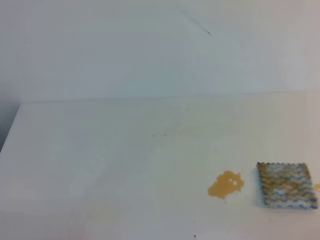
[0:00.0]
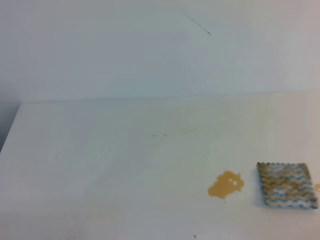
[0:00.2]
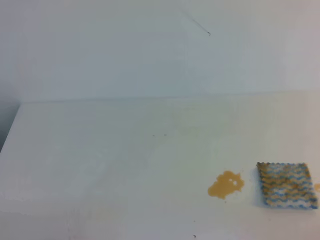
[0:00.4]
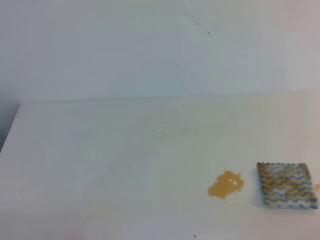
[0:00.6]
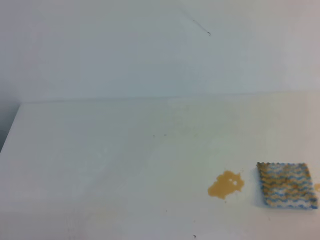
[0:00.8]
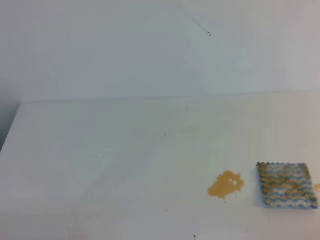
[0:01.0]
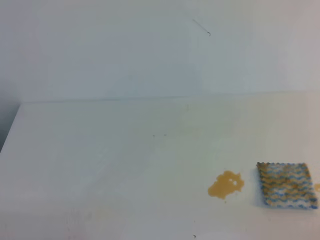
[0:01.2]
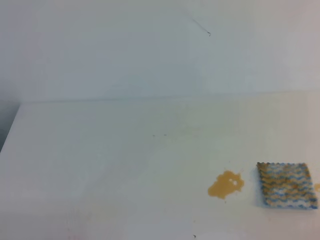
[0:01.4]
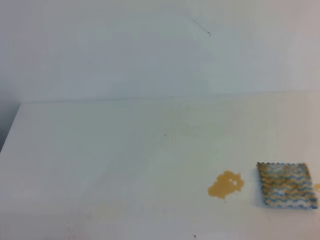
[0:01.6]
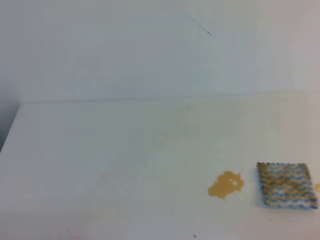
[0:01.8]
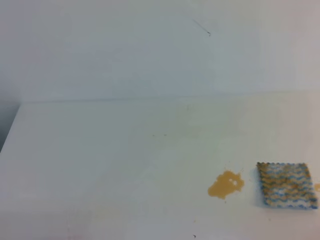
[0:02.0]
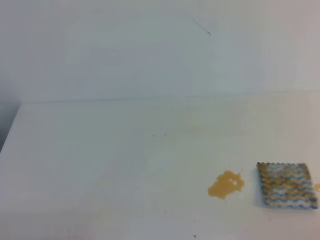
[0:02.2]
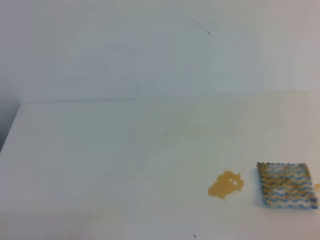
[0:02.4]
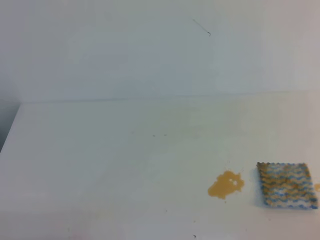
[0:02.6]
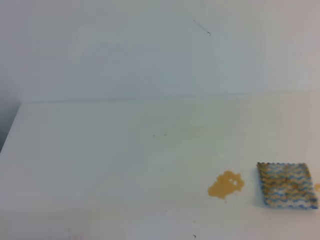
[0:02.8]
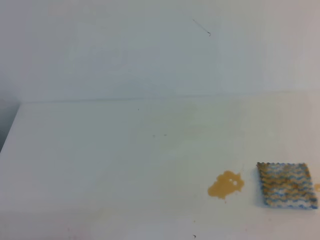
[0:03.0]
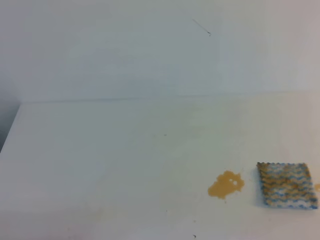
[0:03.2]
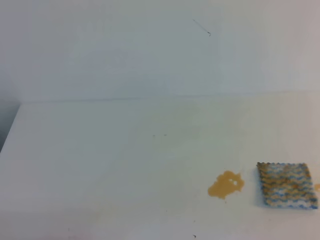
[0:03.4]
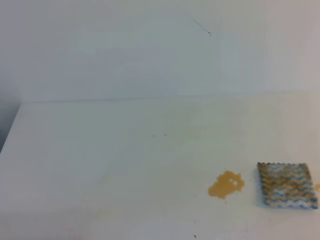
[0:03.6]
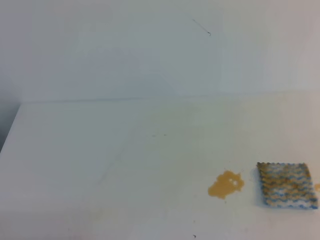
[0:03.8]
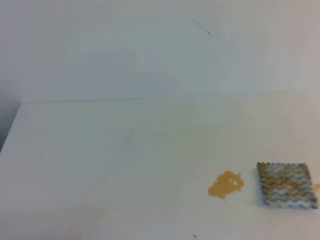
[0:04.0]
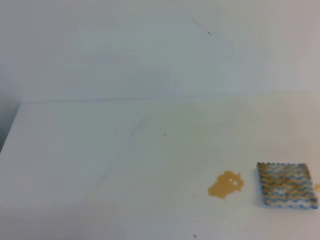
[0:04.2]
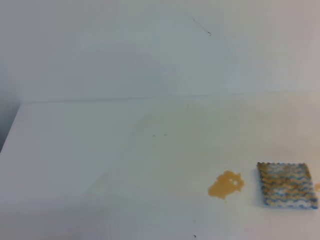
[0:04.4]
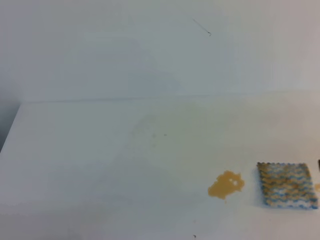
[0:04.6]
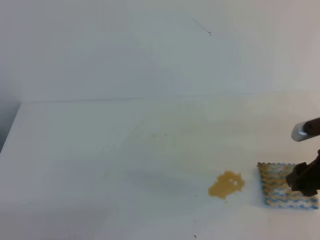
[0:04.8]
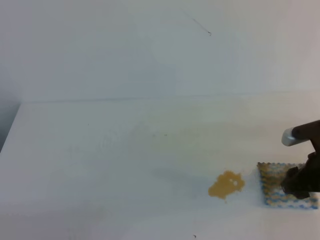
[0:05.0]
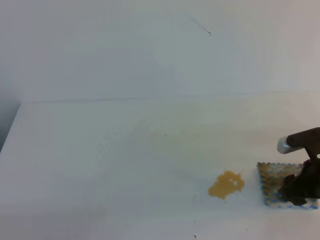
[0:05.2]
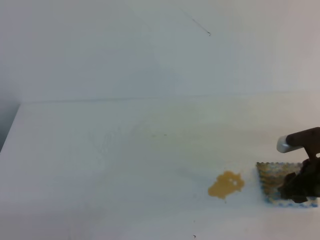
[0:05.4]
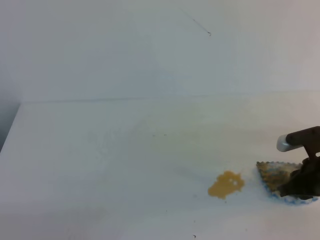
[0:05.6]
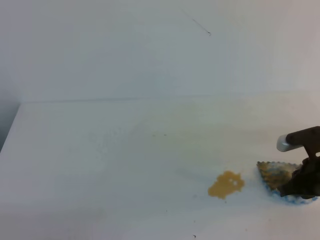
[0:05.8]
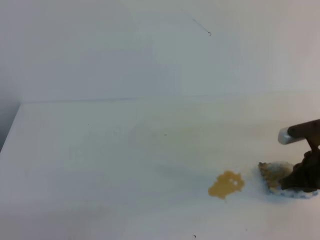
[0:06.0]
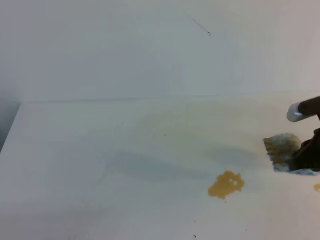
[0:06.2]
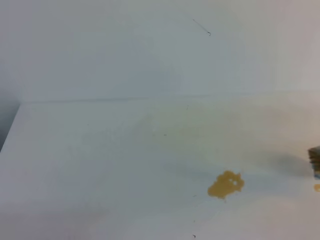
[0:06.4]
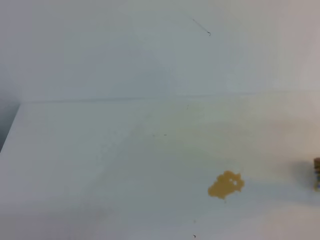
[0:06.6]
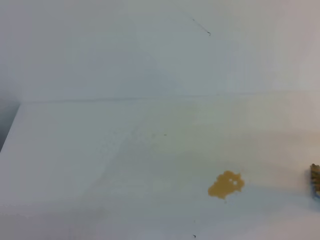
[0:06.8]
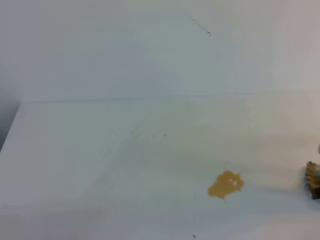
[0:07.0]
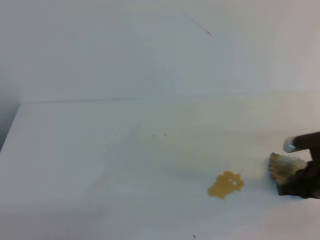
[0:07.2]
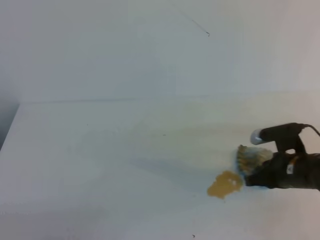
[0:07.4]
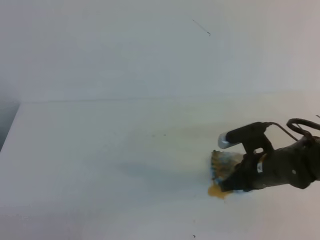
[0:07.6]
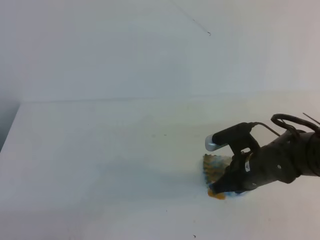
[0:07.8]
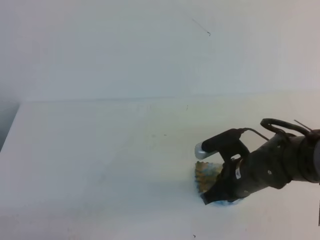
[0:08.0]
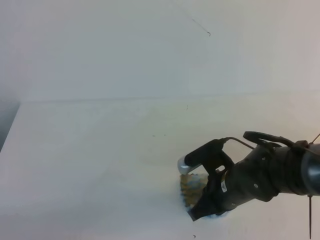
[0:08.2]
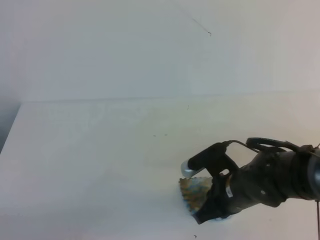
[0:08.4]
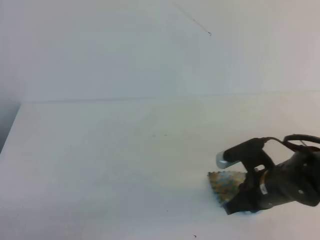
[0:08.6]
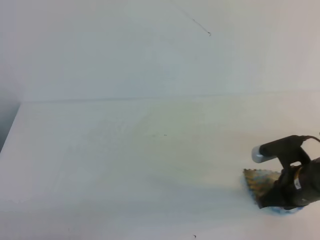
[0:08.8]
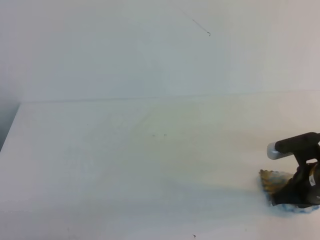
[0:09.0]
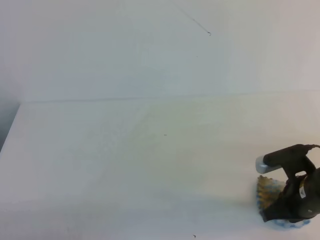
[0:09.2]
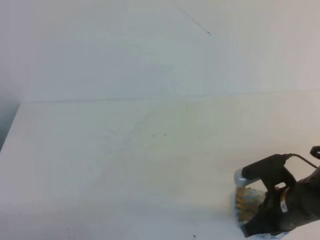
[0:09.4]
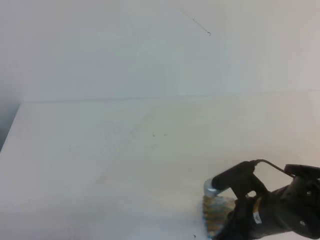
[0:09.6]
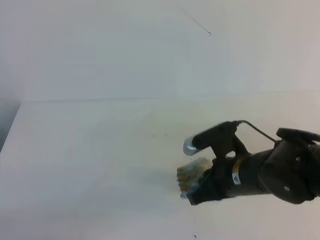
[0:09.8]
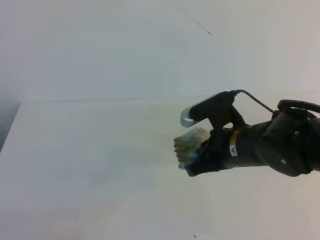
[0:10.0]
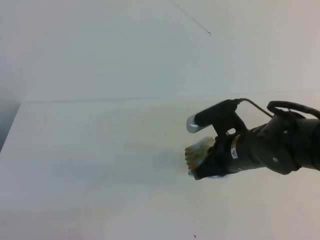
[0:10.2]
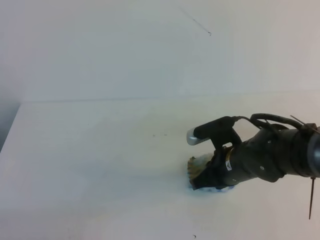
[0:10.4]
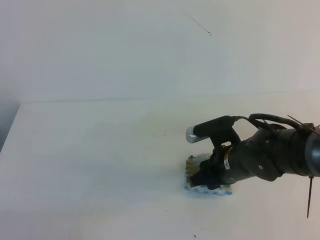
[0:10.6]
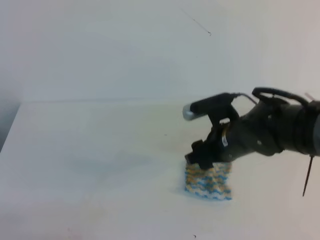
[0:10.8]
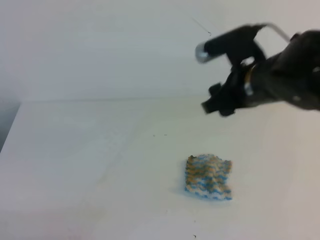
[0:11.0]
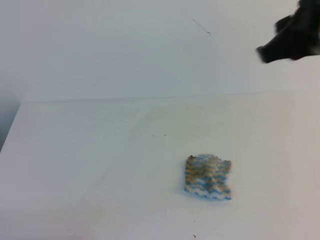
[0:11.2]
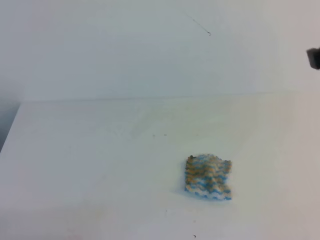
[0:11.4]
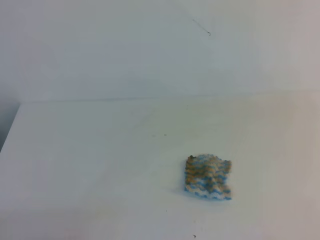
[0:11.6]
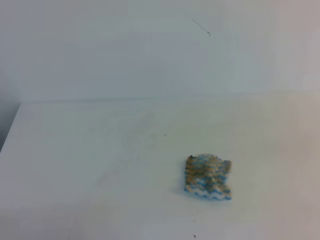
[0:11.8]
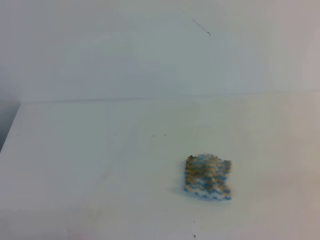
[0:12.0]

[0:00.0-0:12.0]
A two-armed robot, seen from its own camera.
0:00.0 to 0:01.6: The two grippers keep their place.
0:04.4 to 0:06.0: The right gripper moves downward and forward, about 15 cm, and closes up.
0:06.0 to 0:07.6: The right gripper is displaced to the left and downward by some 10 cm.
0:07.6 to 0:09.0: The right gripper shifts by roughly 5 cm.
0:09.0 to 0:10.4: The right gripper goes some 10 cm to the left.
0:10.4 to 0:12.0: The right gripper goes approximately 30 cm backward, to the right and upward, and opens and closes again.

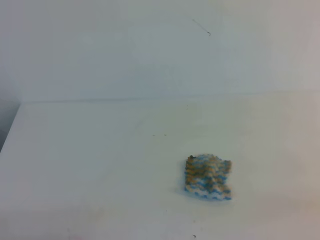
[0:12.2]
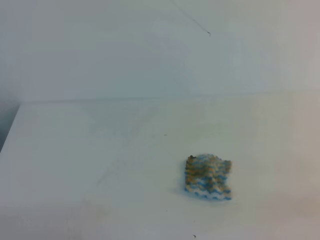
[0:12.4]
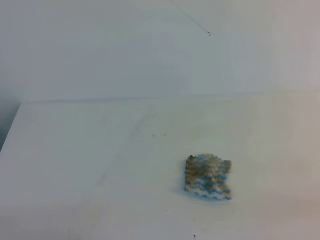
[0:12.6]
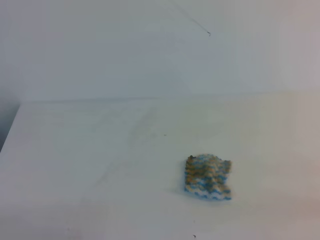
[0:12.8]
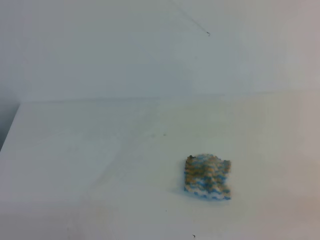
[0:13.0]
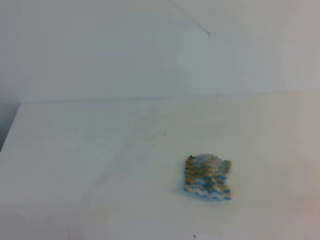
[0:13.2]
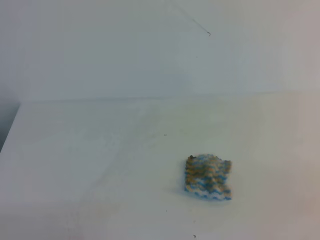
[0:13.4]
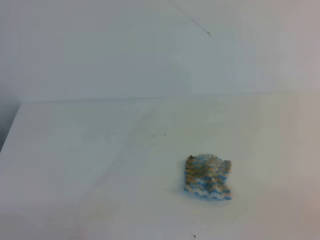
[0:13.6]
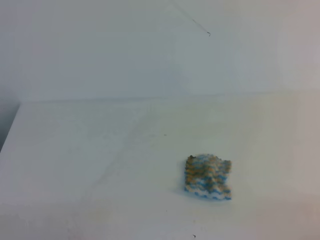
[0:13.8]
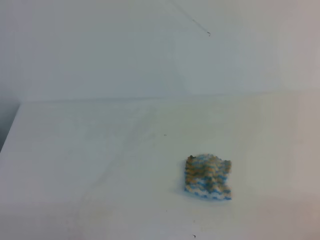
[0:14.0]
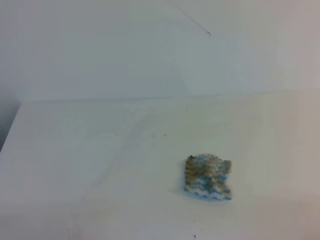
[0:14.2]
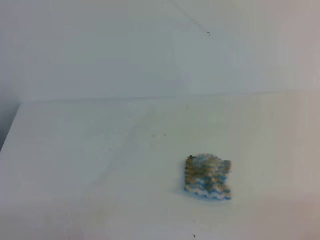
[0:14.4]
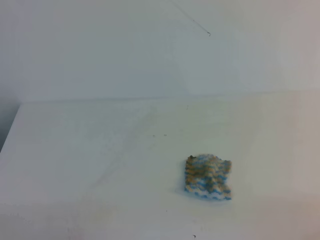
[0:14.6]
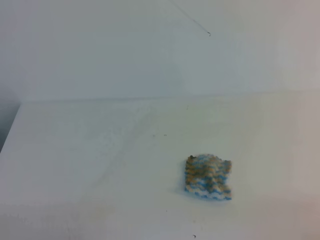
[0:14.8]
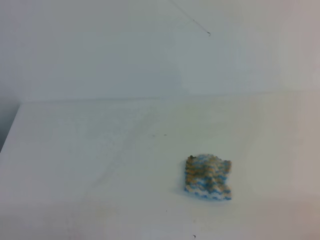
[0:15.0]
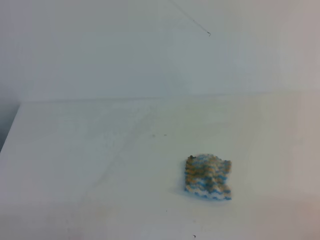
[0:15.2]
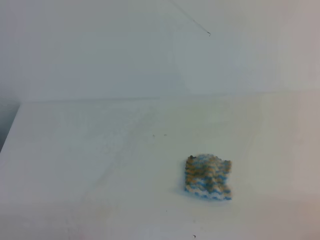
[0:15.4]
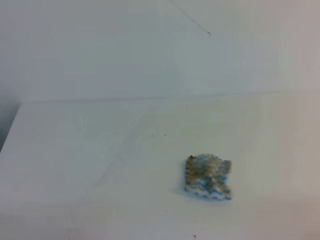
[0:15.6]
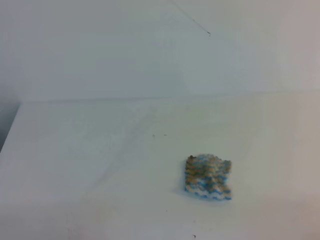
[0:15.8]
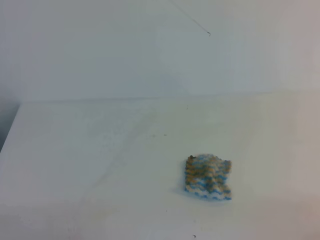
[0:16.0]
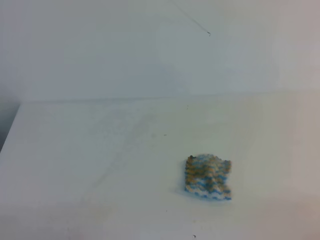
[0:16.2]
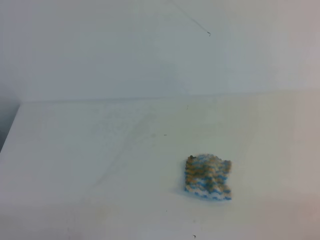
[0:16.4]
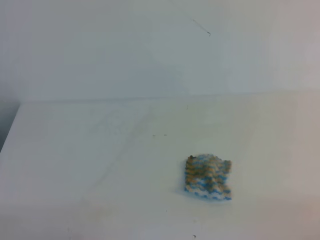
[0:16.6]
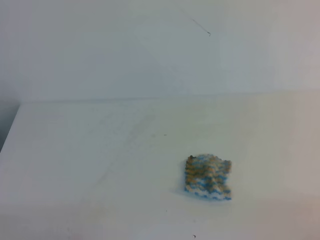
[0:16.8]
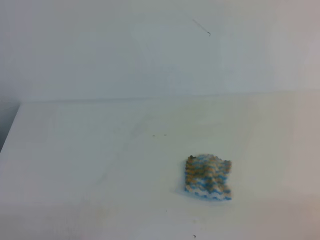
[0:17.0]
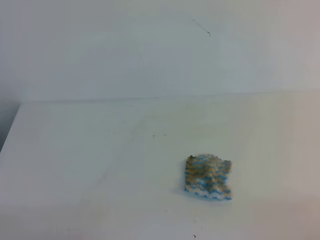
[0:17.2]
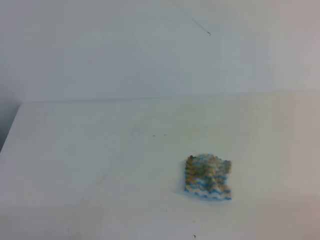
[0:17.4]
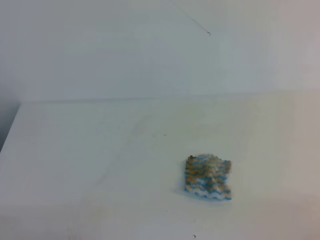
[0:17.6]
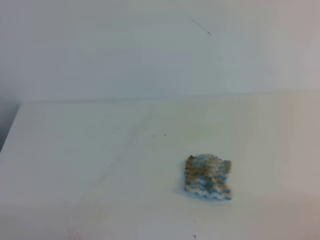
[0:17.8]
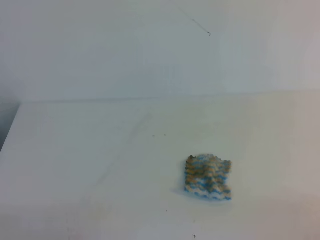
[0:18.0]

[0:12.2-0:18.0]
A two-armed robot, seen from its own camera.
0:15.0 to 0:18.0: Both grippers stay put.
